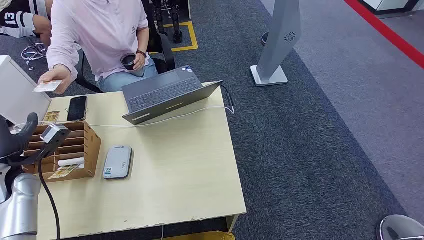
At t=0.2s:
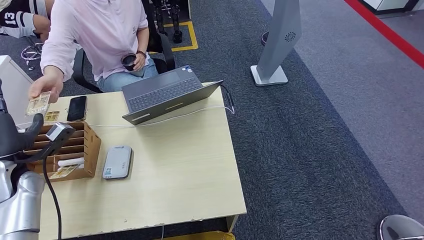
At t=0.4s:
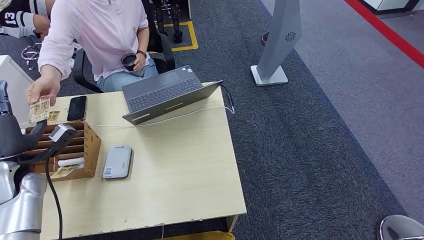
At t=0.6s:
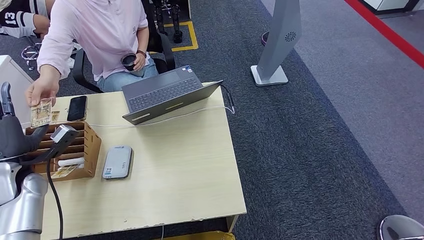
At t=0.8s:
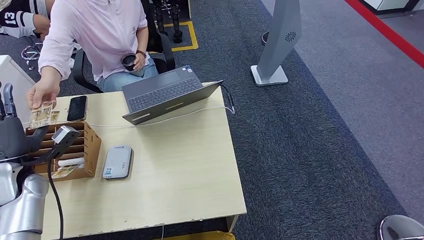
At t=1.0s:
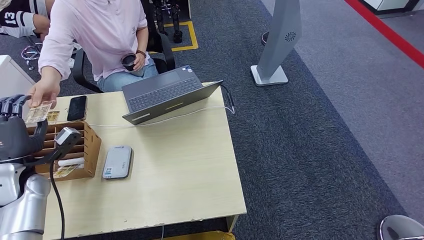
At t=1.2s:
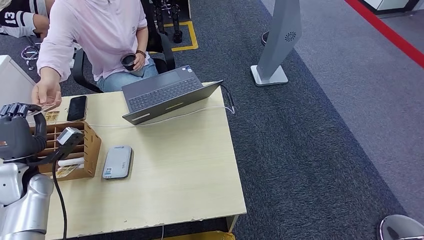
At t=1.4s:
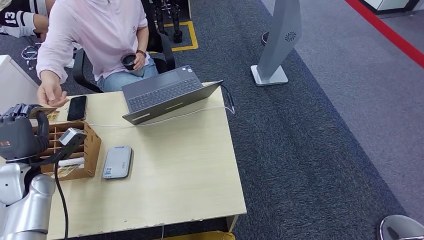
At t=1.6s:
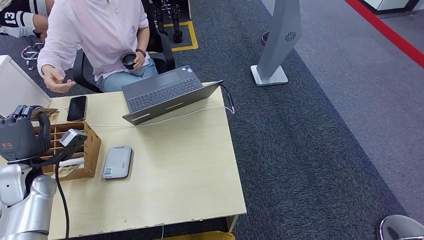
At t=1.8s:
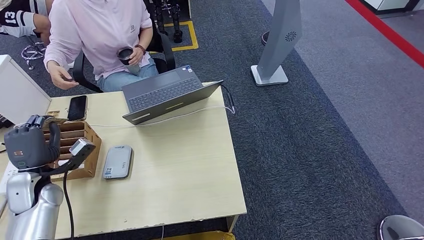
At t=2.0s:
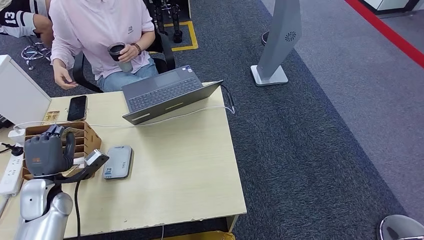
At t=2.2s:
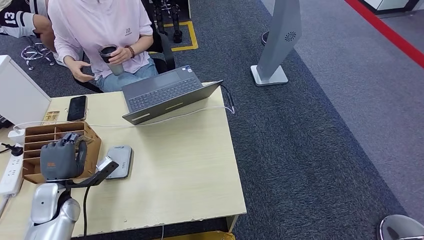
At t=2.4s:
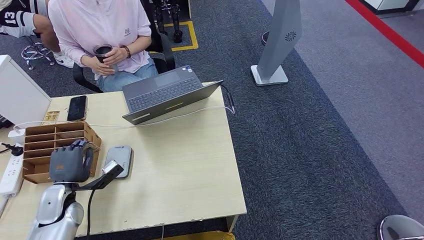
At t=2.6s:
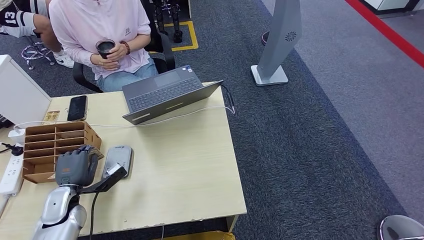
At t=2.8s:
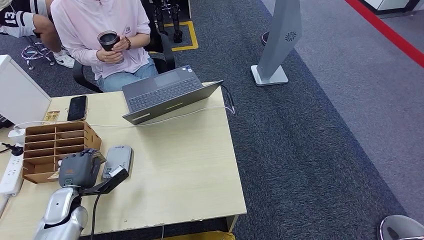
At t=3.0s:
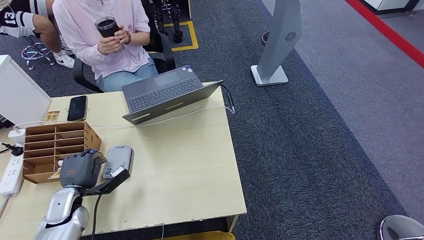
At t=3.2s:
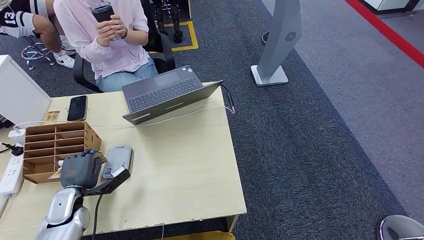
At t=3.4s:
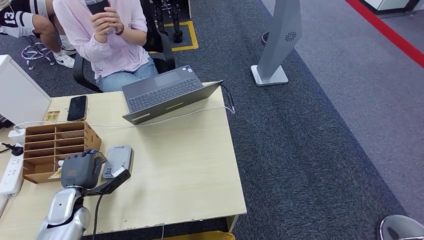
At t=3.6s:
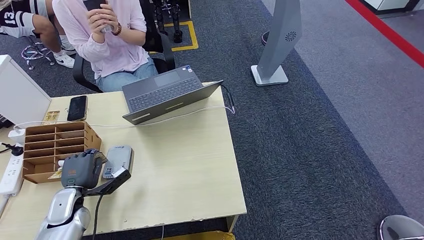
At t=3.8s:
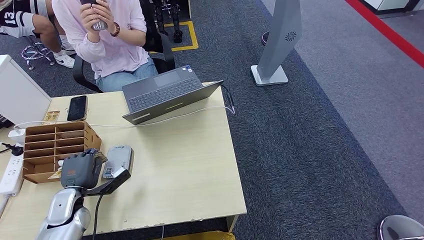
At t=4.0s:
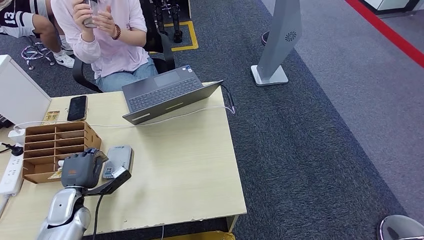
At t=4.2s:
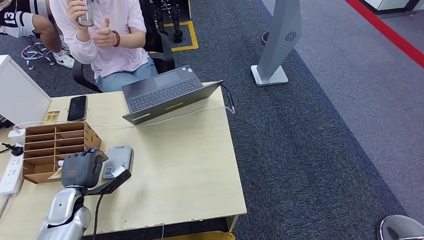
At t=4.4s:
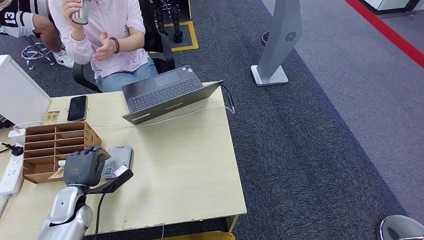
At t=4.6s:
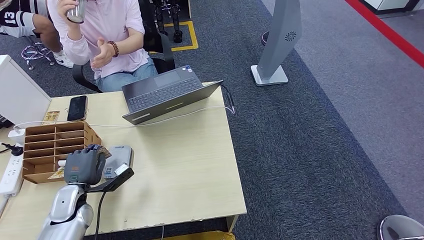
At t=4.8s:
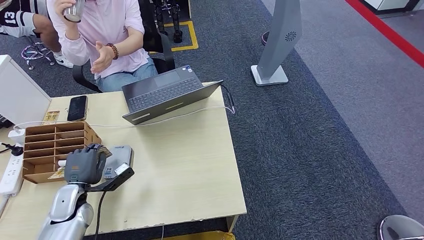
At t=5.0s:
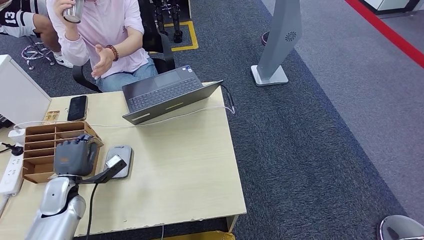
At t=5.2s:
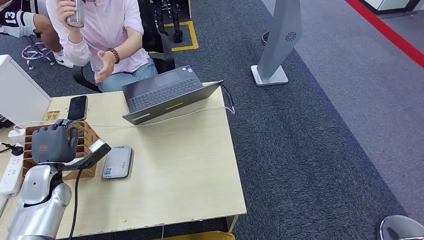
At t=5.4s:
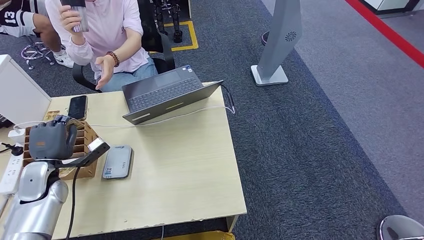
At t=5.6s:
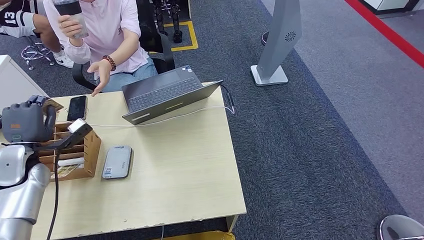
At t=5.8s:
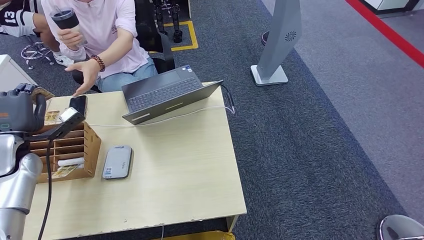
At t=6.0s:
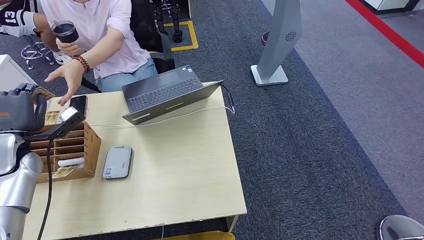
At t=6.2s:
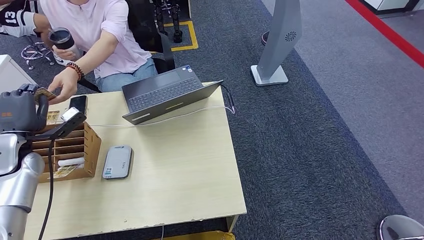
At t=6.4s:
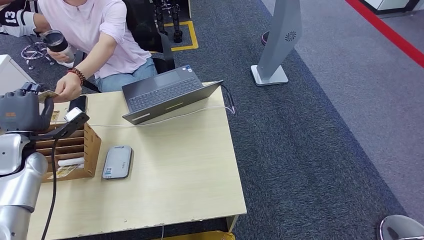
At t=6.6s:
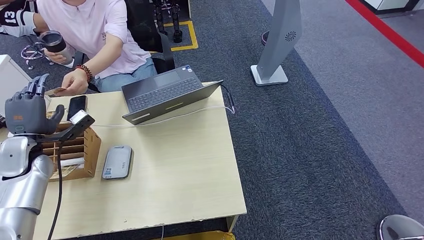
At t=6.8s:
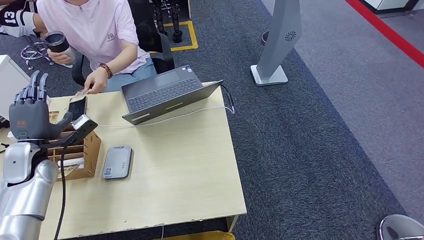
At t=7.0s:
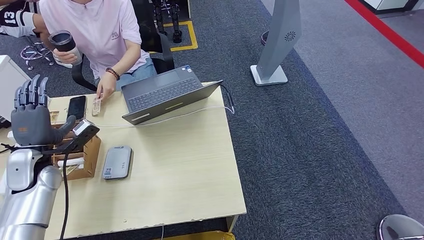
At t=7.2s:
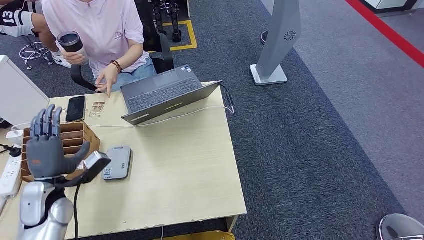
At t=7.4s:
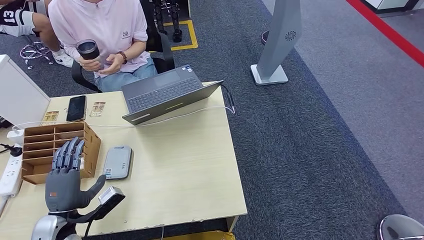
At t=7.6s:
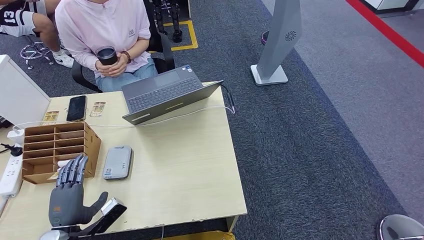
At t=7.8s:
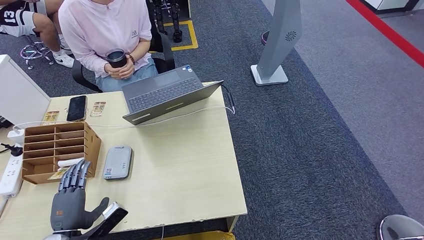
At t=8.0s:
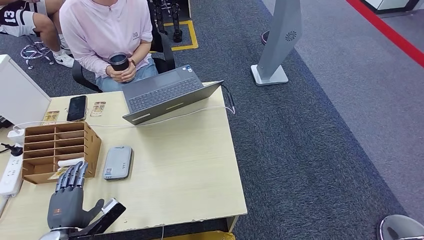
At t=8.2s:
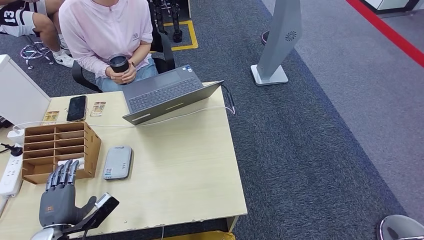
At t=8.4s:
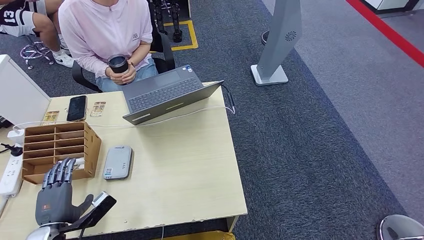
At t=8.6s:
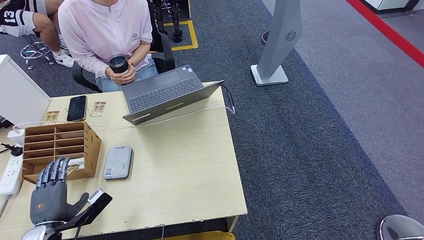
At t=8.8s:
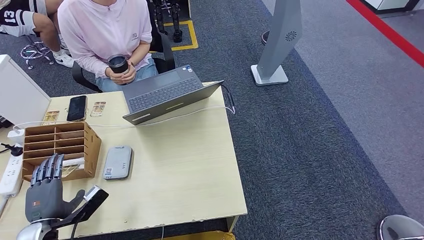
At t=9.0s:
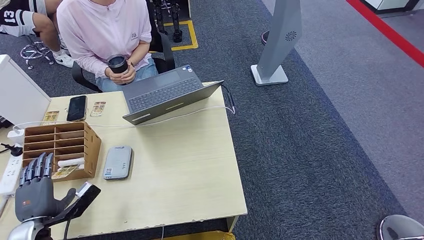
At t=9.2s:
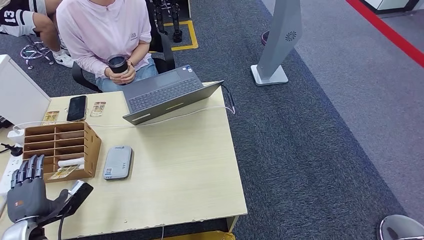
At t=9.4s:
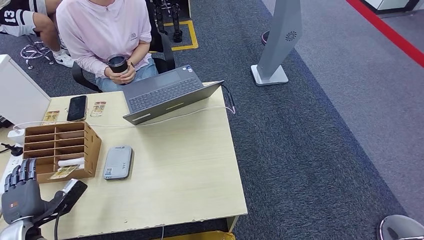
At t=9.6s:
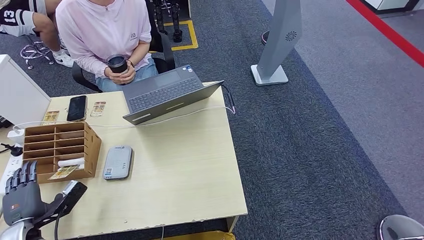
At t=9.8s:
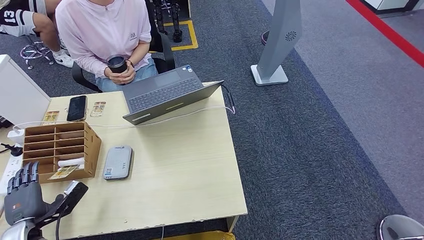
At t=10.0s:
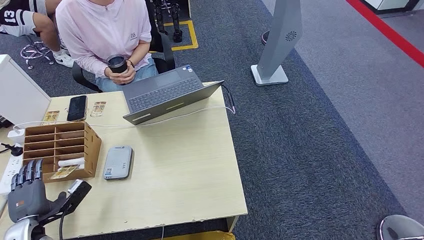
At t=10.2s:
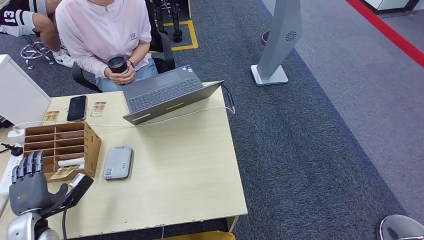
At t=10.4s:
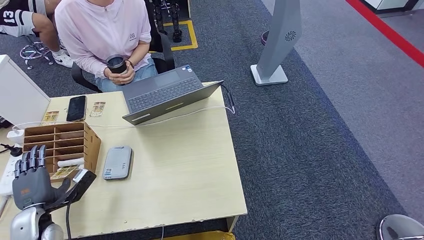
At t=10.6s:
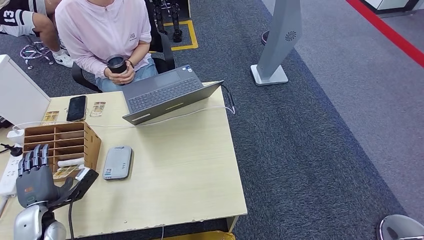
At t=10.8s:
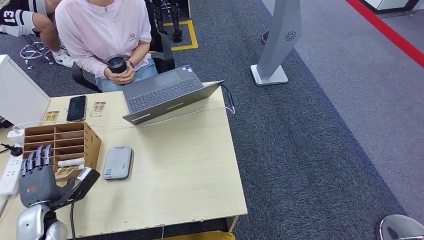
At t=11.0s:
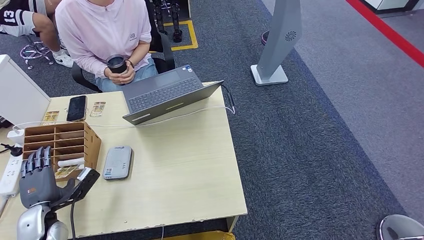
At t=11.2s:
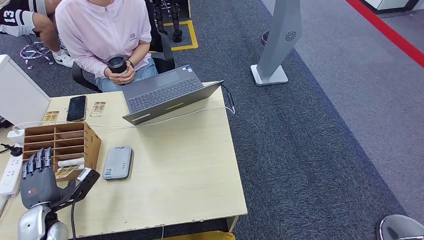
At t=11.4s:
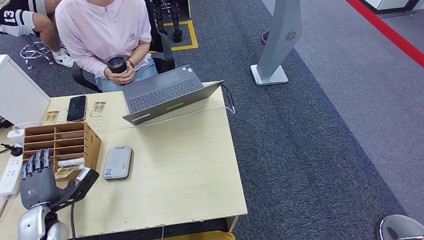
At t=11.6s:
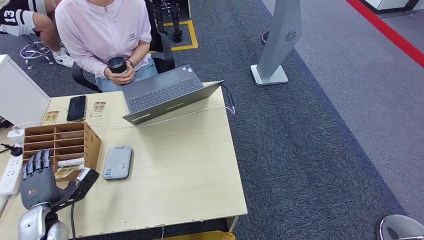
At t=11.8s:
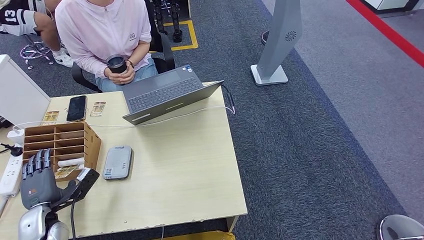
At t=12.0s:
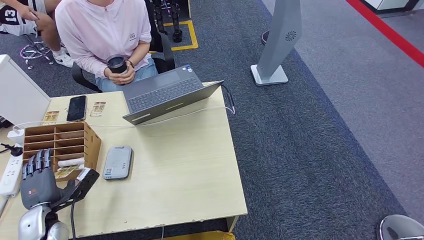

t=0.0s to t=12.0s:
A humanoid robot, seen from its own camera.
Step, t=0.0s to t=1.6s: Take the ID card from the person's hand.
Step, t=2.4s to t=5.2s: Place the ID card on the card reader.
Step, t=5.8s to t=7.8s: Hand the ID card to the person.
t=1.6s to t=3.0s: The left hand moves downward, approximately 10 cm.
t=3.0s to t=4.4s: The hands move only a little.
t=4.4s to t=6.0s: The left hand goes approximately 20 cm upward, forward and to the left.
t=6.0s to t=7.6s: The left hand shifts some 25 cm backward, downward and to the right.
t=7.6s to t=9.0s: The left hand goes approximately 5 cm to the left.
t=9.0s to t=12.0s: There are only small adjustments of the hands.

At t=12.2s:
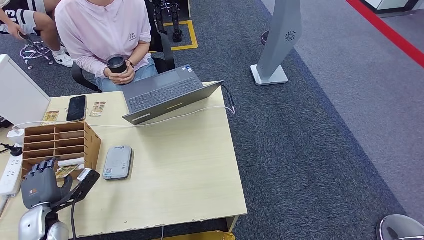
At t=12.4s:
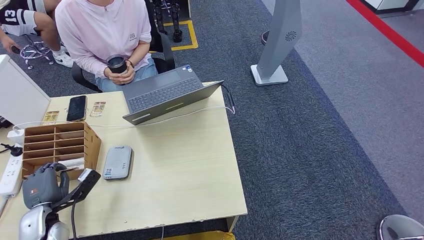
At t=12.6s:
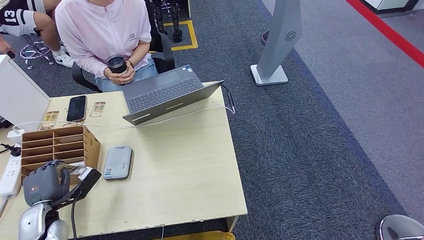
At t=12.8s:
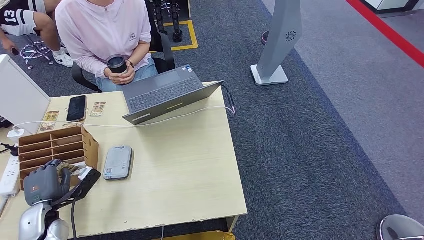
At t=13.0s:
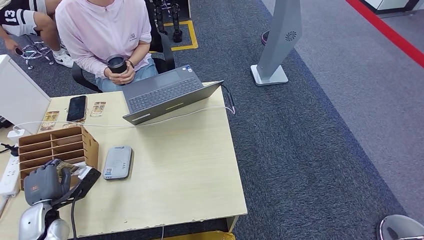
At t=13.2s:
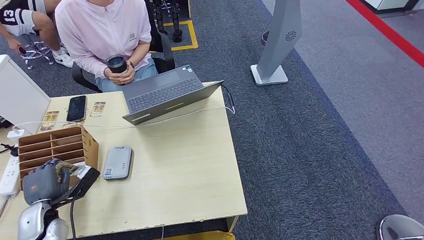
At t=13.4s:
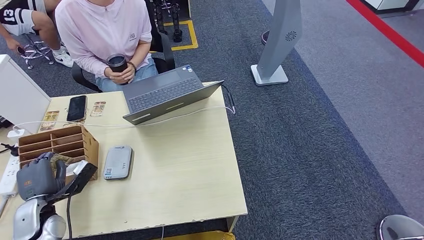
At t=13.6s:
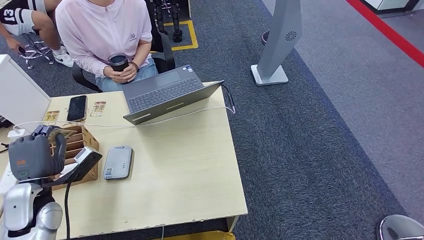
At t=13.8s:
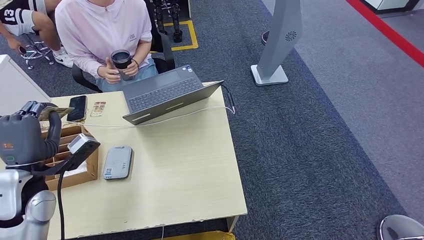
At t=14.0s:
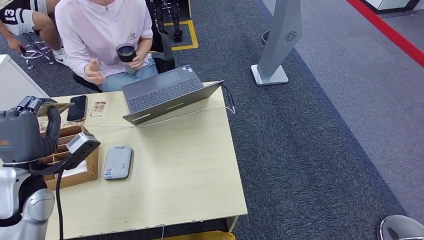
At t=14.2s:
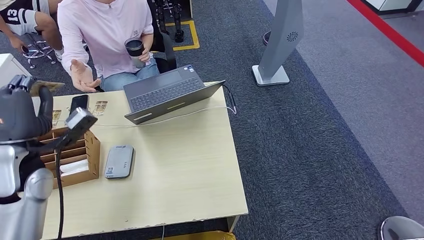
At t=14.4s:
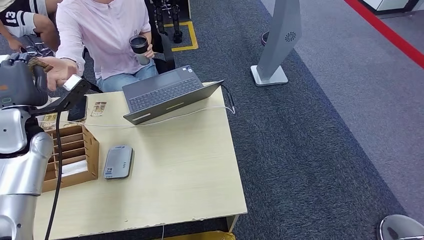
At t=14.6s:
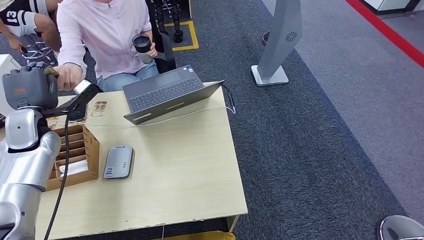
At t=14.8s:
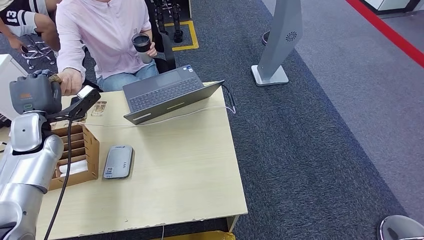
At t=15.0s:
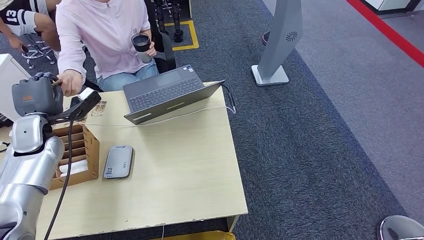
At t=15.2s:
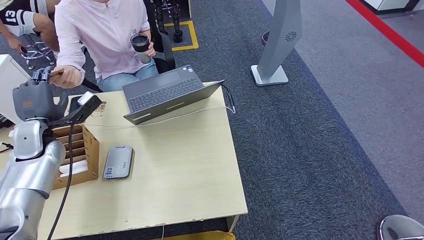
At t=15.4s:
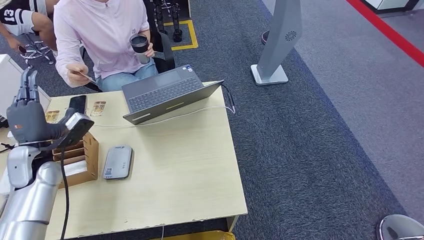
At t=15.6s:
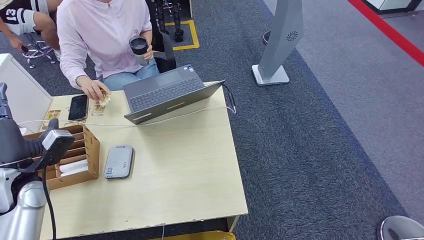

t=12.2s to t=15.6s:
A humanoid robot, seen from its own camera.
Step, t=12.2s to t=13.4s: Pick up the room key from the key card box.
Step, t=14.0s to t=15.6s: Hand the room key to the person.
t=12.2s to t=13.8s: The left hand is displaced upward by roughly 15 cm.
t=13.8s to t=15.6s: The left hand goes forward and returns, approximately 15 cm each way.
